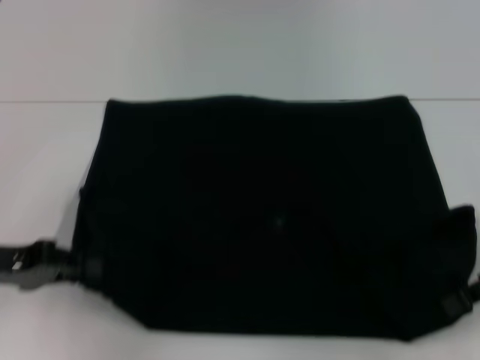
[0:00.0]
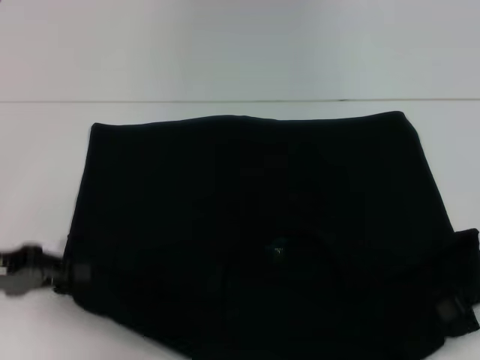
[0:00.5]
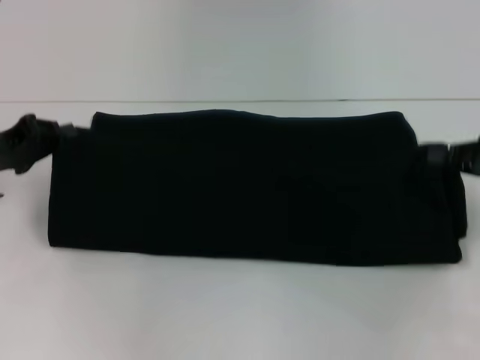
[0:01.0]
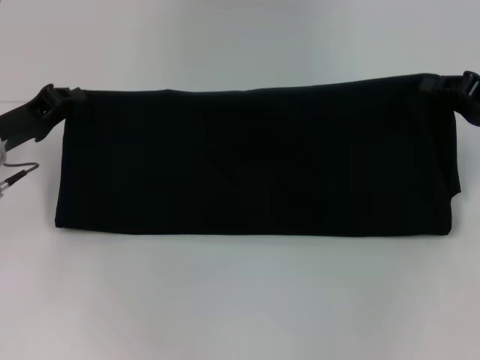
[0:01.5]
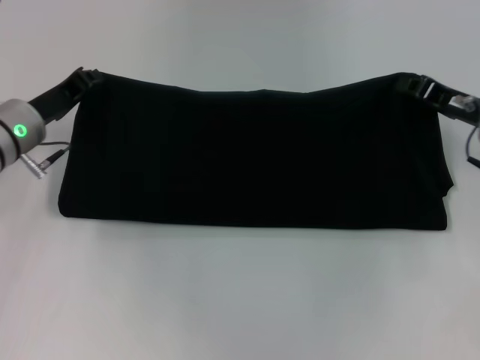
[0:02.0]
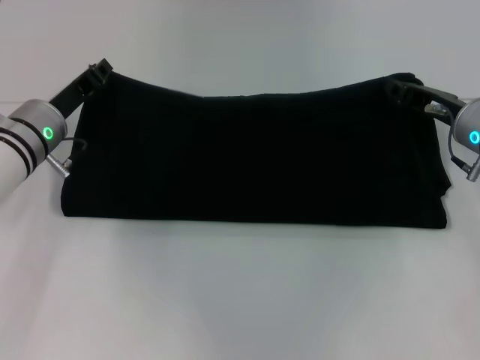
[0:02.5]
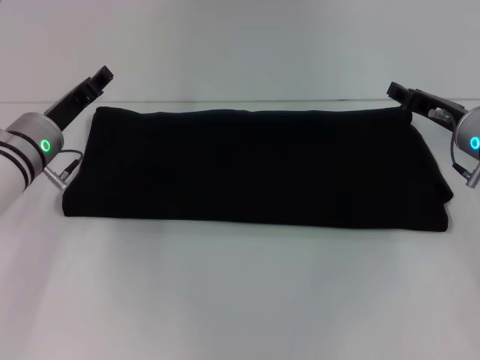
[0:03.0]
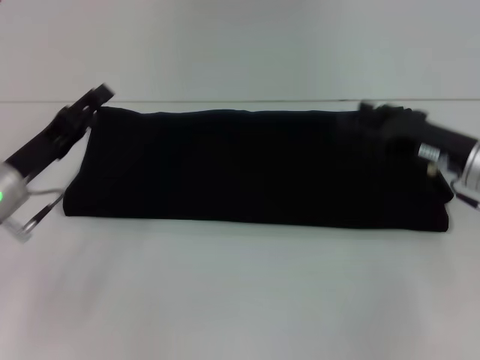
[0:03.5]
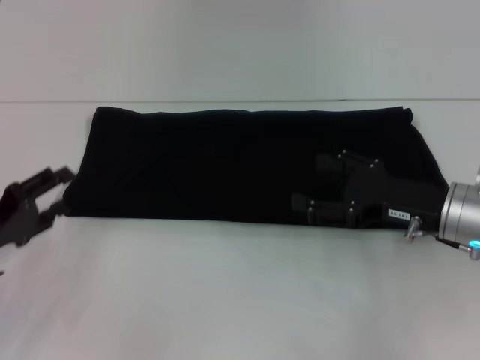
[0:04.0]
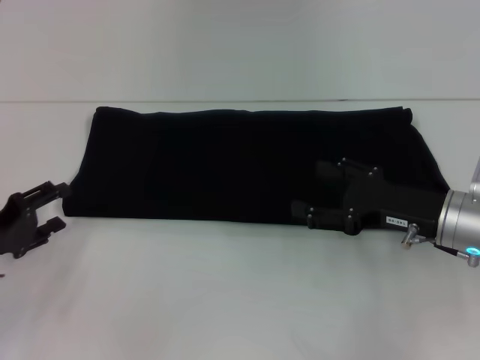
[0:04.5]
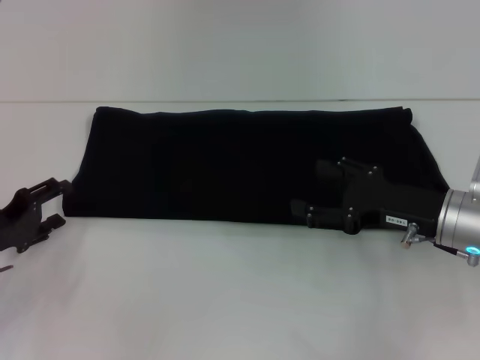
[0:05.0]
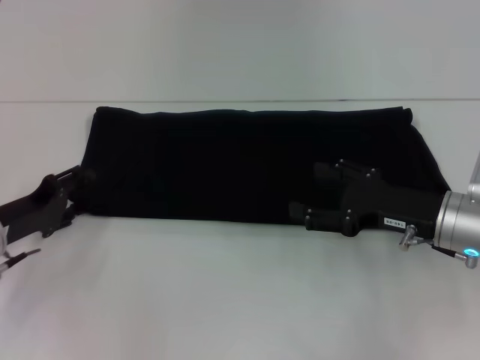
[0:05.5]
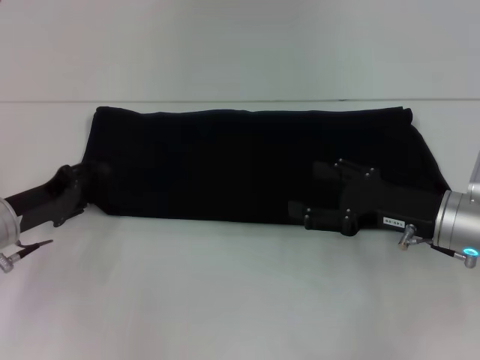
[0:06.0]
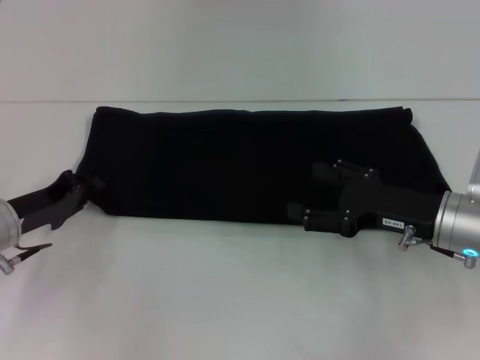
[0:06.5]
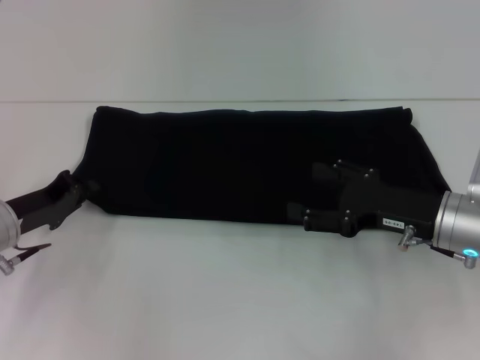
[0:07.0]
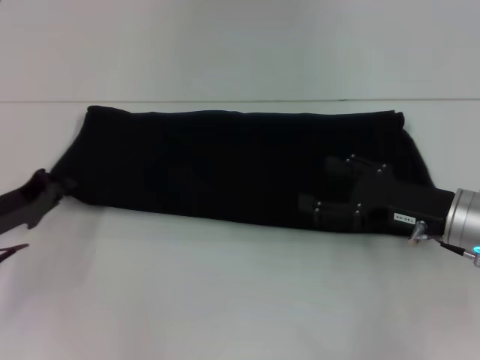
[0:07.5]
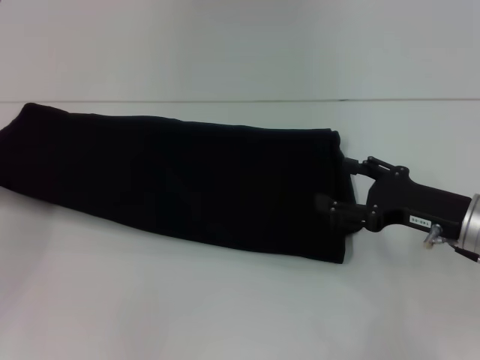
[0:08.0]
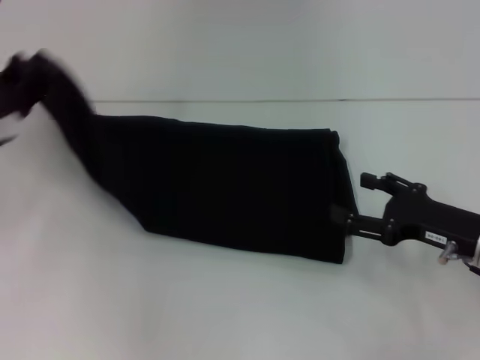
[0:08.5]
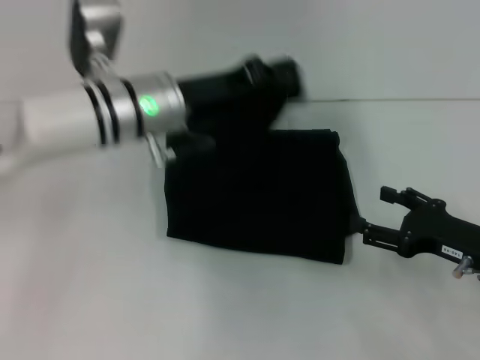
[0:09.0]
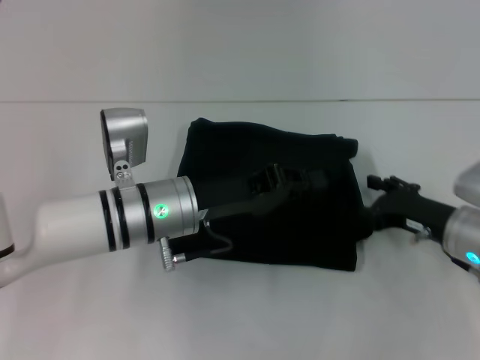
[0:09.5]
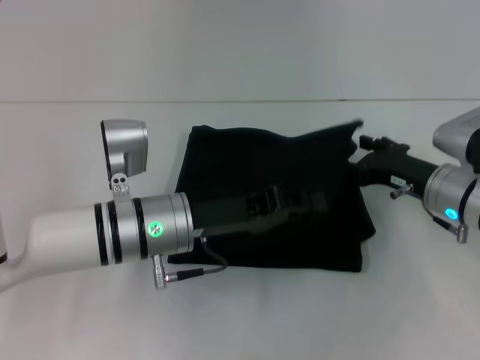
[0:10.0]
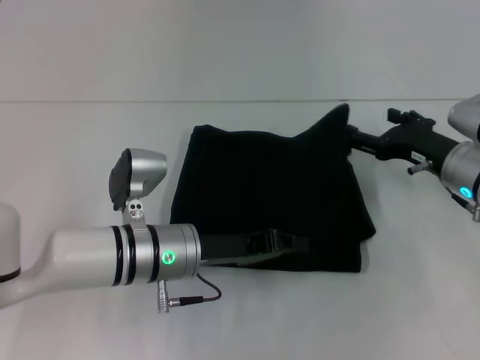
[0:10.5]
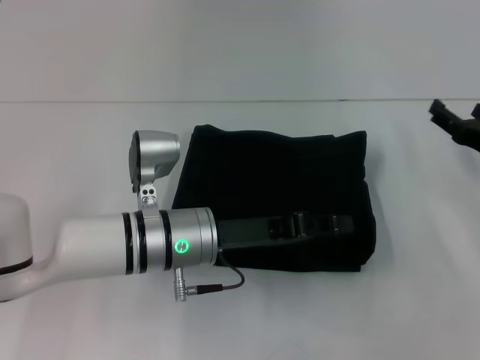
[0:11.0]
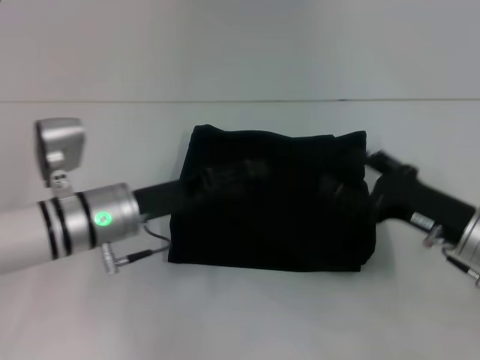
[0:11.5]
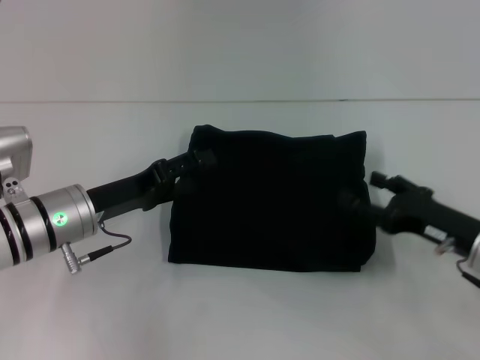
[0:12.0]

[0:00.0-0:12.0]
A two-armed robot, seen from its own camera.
Step, 0:00.5 to 0:02.5: Fold the clothes with your right hand.
Step, 0:00.5 to 0:10.5: Fold the clothes with your left hand.
0:00.0 to 0:02.0: The right gripper heads forward, covering approximately 10 cm; the left gripper travels forward and to the right by roughly 15 cm.
0:02.0 to 0:04.0: The right gripper shifts about 10 cm backward, and opens its fingers. Meanwhile the left gripper shifts about 15 cm backward and to the left, and opens up.
0:04.0 to 0:06.0: The left gripper travels forward by approximately 5 cm.
0:06.0 to 0:08.0: The left gripper heads to the left, covering some 10 cm, and closes up.
0:08.0 to 0:10.0: The right gripper moves approximately 5 cm. Meanwhile the left gripper heads to the right, covering approximately 25 cm.
0:10.0 to 0:12.0: The right gripper heads backward, covering about 5 cm. The left gripper goes about 10 cm to the left, and opens its fingers.

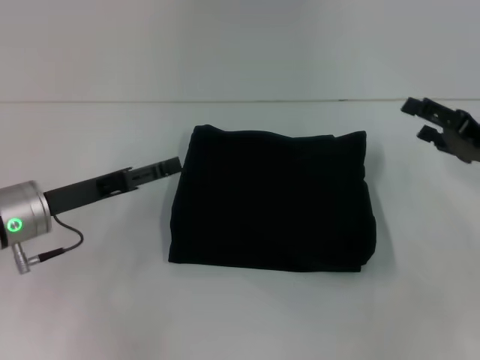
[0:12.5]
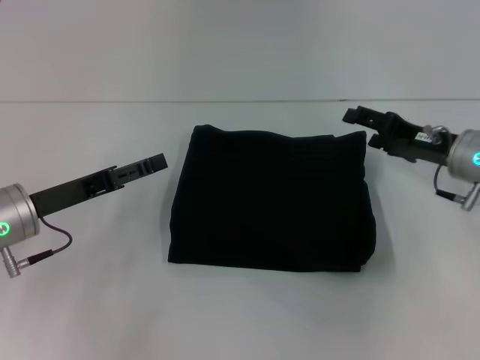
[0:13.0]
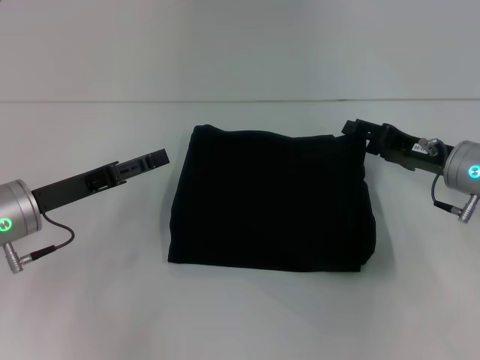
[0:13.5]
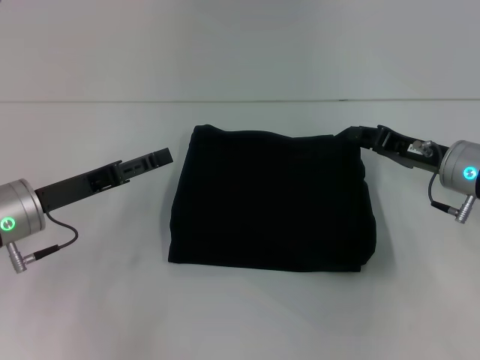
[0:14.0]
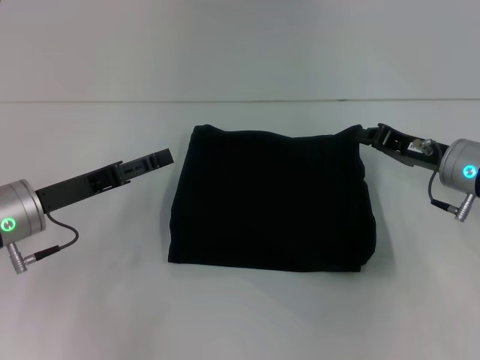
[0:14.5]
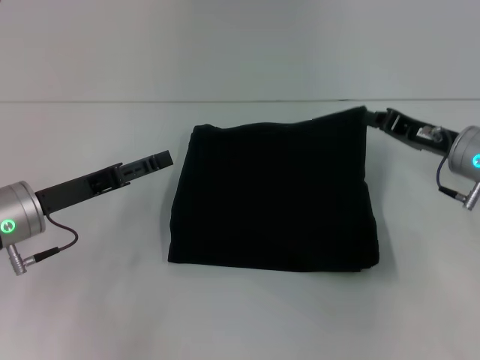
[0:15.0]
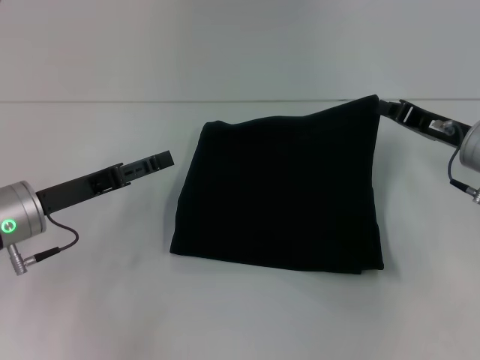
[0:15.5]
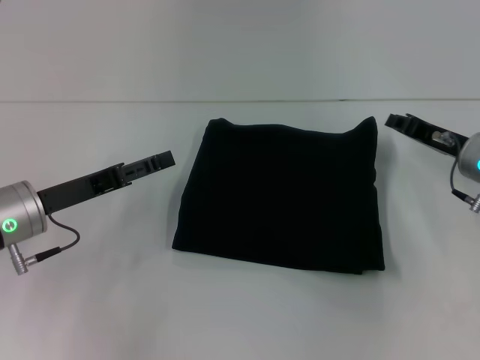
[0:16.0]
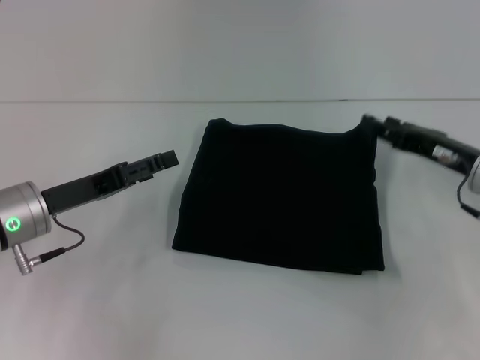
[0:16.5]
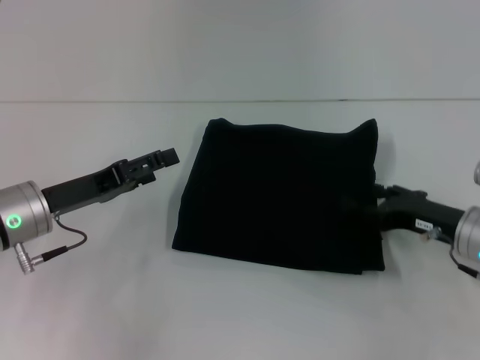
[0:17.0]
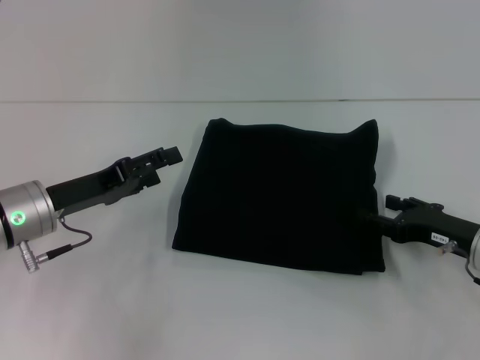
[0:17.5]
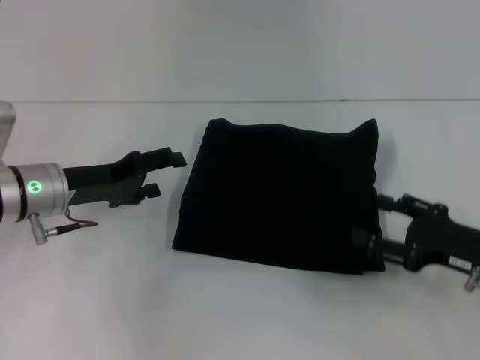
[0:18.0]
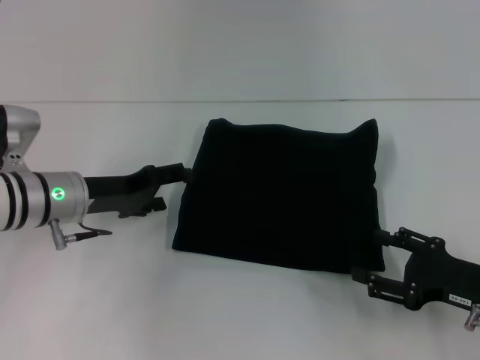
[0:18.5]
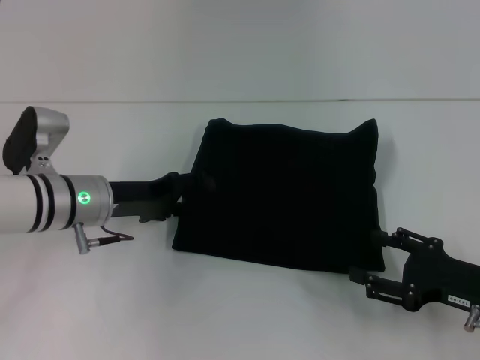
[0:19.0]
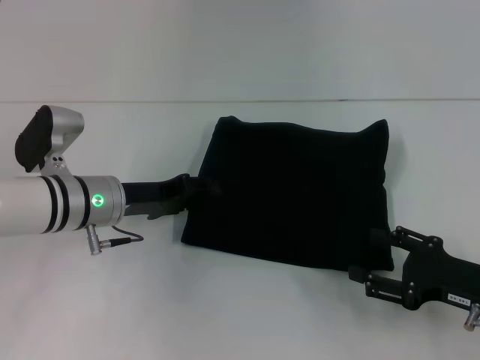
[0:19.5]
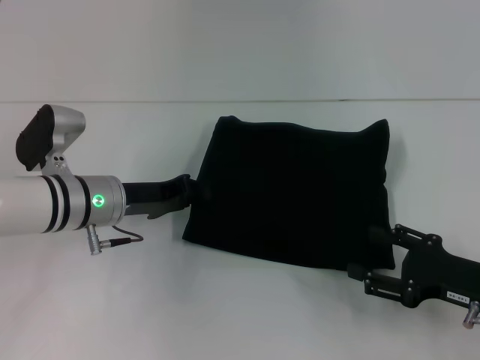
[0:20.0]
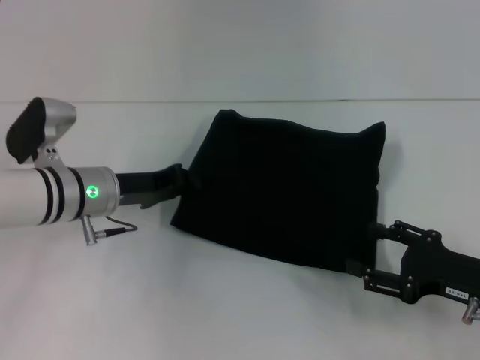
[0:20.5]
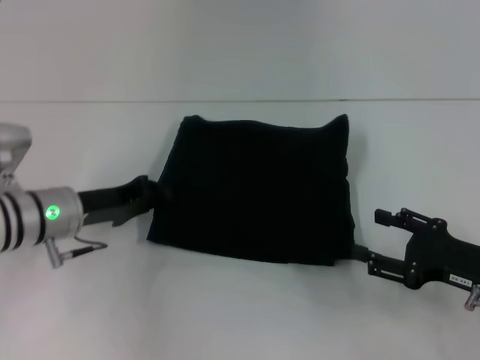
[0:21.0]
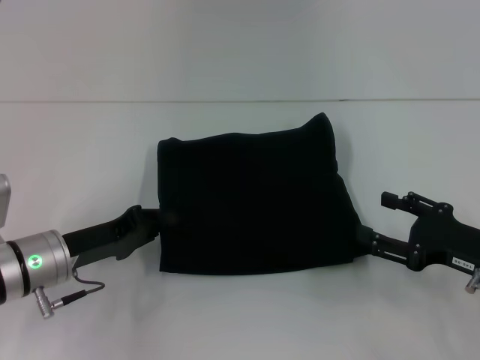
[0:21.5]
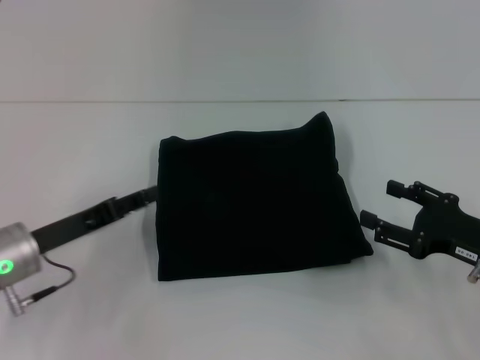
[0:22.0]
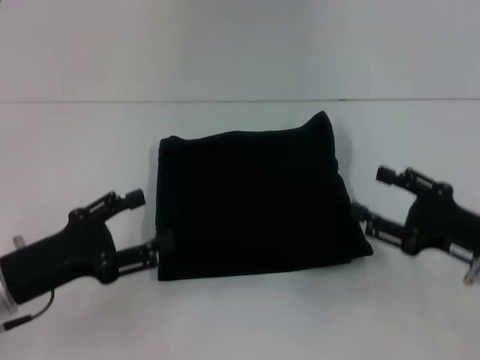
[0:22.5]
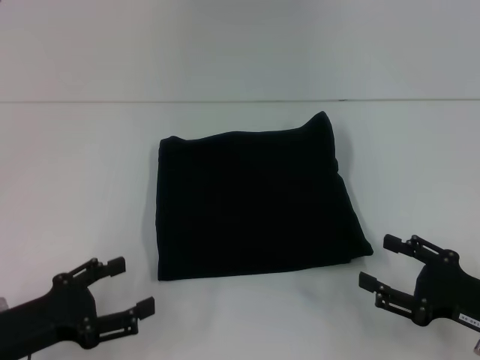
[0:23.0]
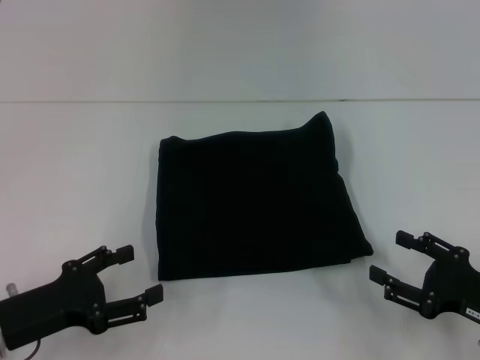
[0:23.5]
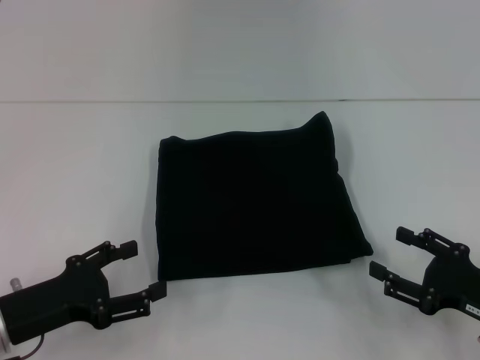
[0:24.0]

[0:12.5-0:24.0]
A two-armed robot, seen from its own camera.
0:12.5 to 0:14.5: The right gripper shifts roughly 5 cm to the left, and closes.
0:14.5 to 0:16.5: The right gripper opens up.
0:16.5 to 0:18.5: The left gripper ends up some 5 cm from where it was, while the right gripper goes about 10 cm backward.
0:18.5 to 0:20.0: The left gripper closes up.
0:20.0 to 0:22.0: The left gripper heads backward and to the left, covering roughly 10 cm.
0:22.0 to 0:24.0: The left gripper shifts approximately 5 cm backward, and opens up, while the right gripper changes place by some 5 cm.
